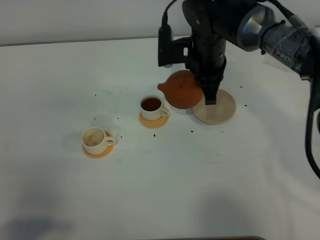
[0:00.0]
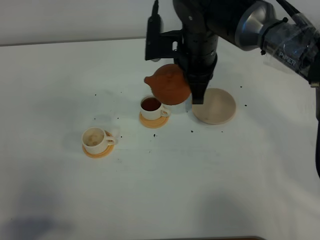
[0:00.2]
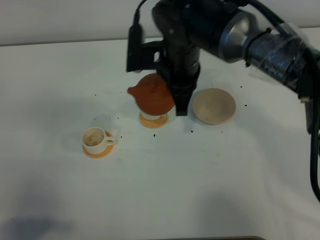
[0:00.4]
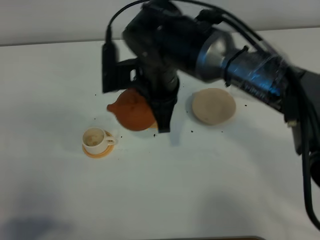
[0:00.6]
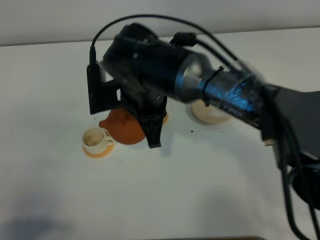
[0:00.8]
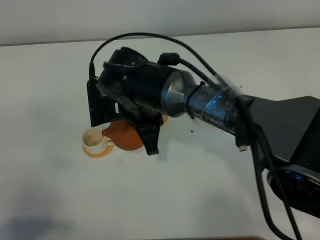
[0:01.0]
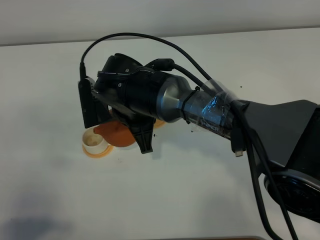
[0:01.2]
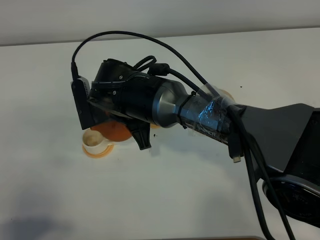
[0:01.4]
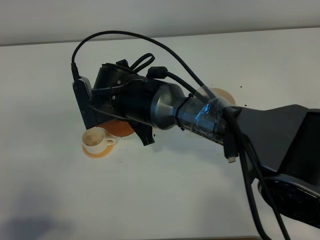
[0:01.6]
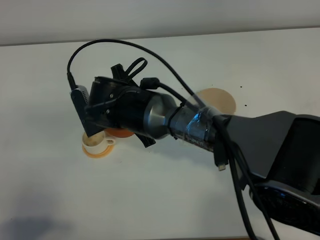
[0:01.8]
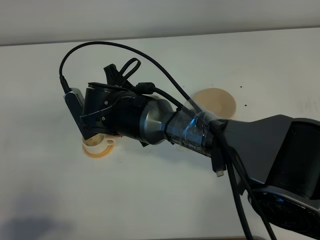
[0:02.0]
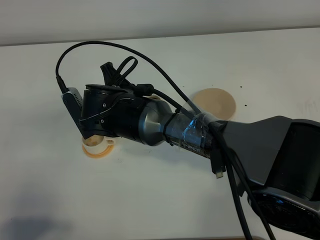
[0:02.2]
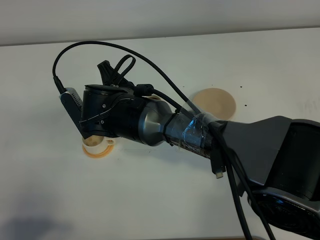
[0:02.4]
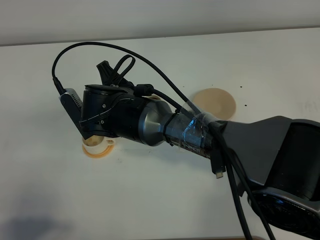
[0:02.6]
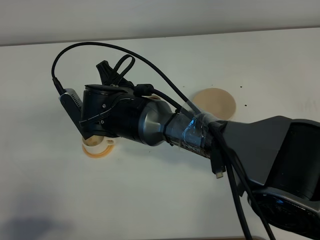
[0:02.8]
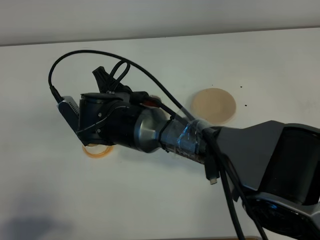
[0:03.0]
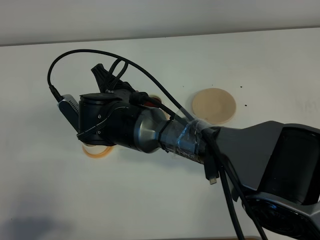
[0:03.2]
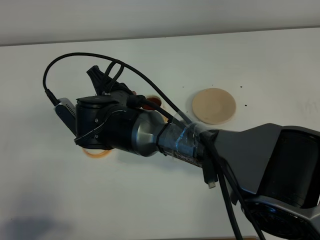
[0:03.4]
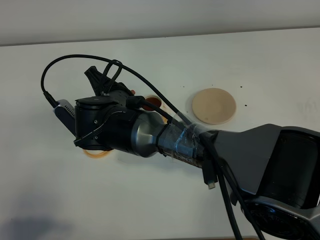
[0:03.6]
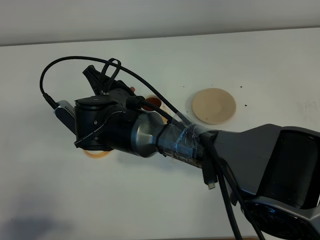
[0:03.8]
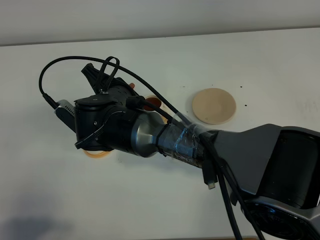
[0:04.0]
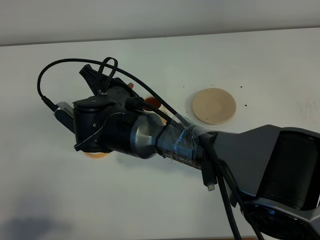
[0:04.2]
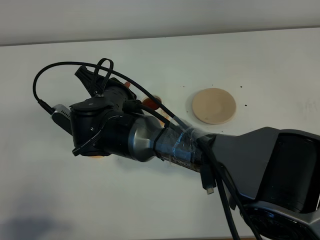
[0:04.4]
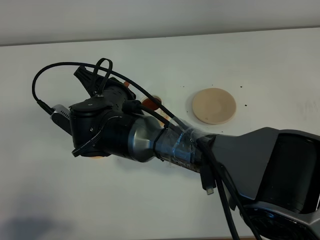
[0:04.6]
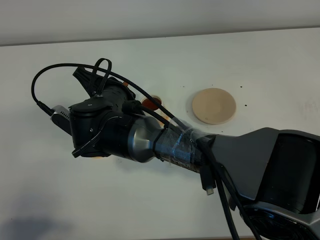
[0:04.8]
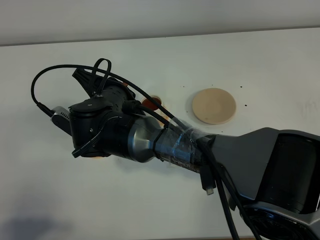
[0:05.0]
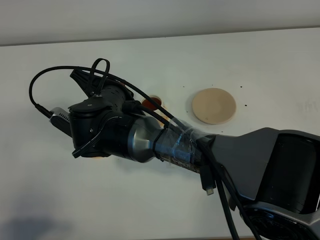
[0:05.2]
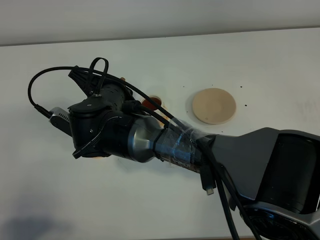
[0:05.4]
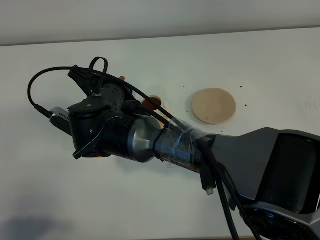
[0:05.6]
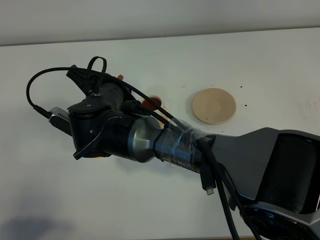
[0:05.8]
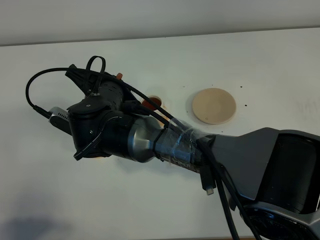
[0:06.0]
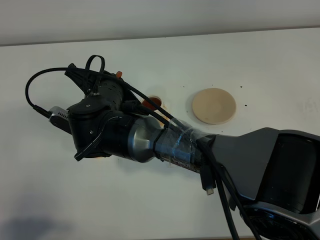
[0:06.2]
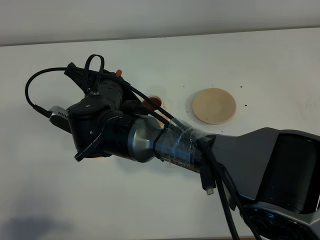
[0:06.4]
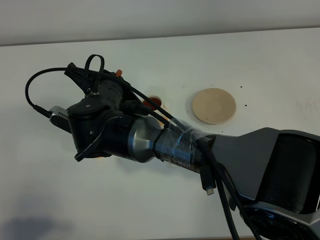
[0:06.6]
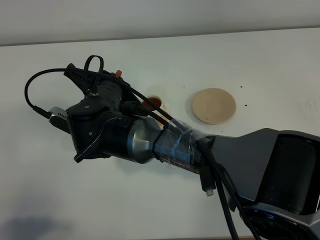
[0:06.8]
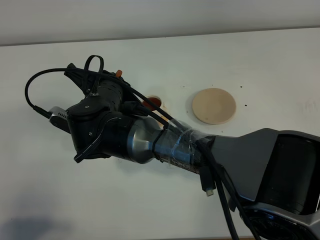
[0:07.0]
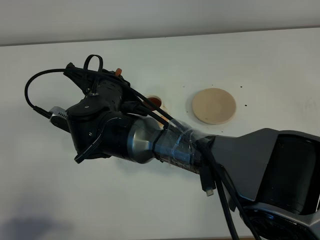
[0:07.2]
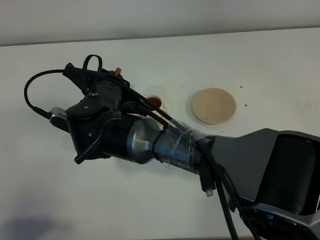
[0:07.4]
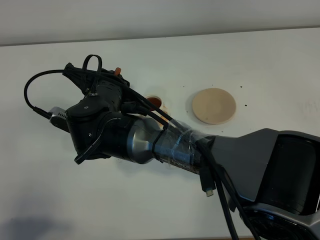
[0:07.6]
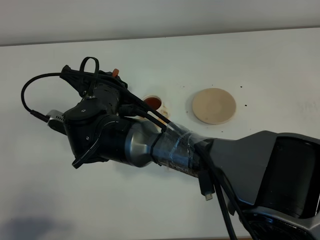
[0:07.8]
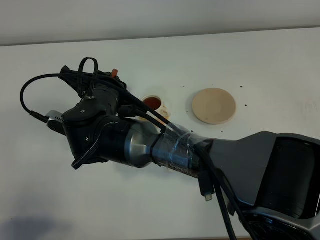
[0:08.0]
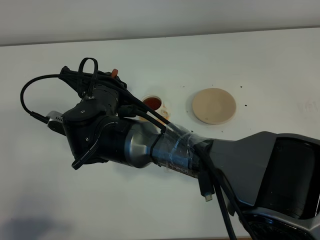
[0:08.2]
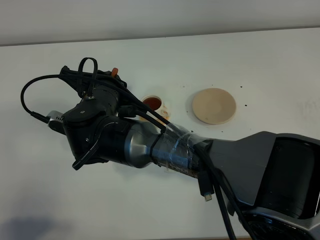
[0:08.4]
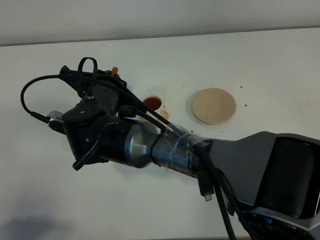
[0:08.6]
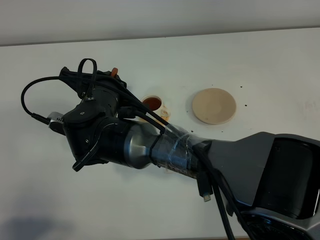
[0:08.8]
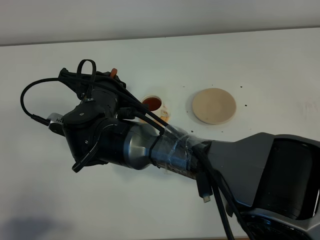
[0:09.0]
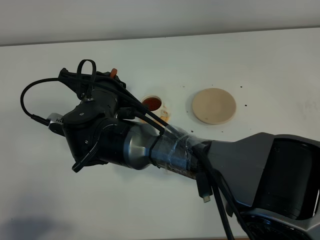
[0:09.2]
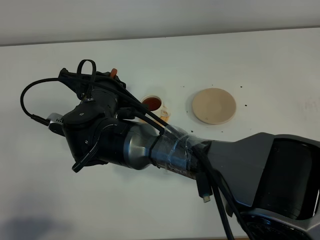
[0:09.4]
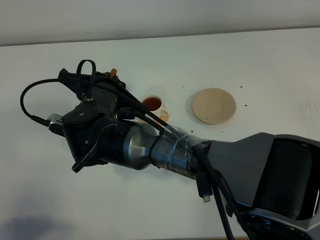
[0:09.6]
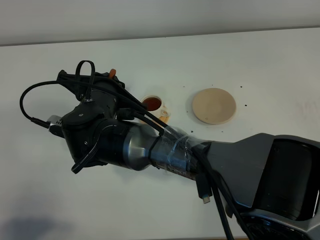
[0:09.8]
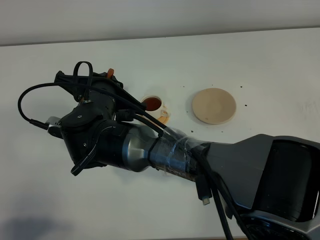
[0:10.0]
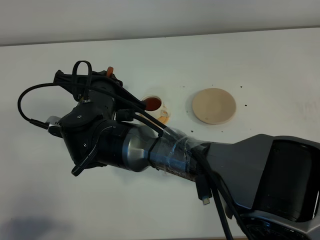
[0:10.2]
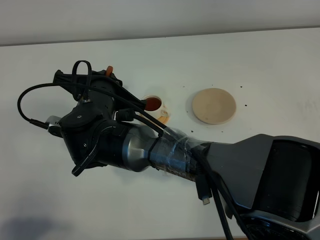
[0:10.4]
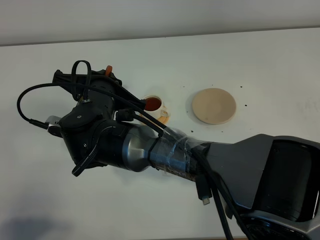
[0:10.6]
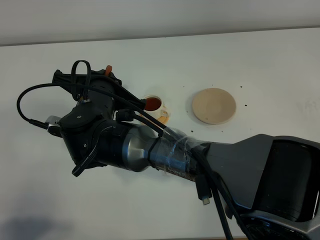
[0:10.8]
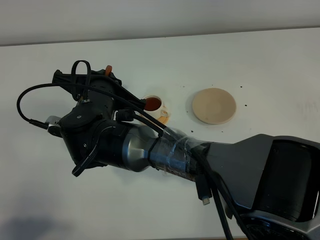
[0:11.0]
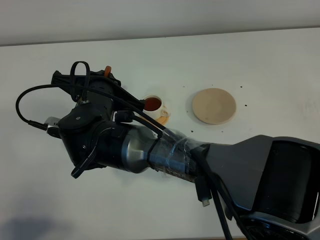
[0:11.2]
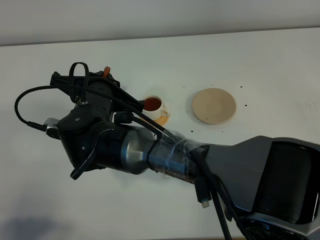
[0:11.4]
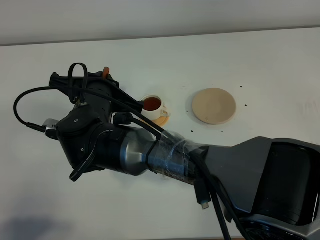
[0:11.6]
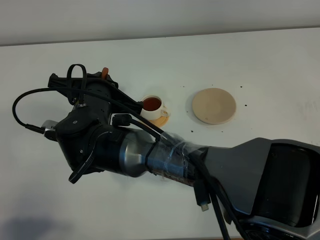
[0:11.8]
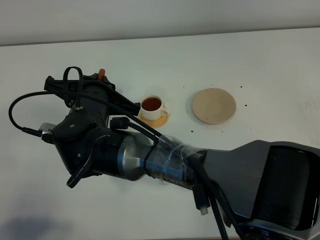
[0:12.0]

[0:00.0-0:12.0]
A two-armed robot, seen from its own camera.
Task of the whole recording: grasp the brown teapot and pour the tea into the two white teacups one by one, put the brown teapot back in its original place.
0:00.0 to 0:01.6: The right gripper is displaced to the left and backward by roughly 15 cm.
0:03.0 to 0:04.4: There are only small adjustments of the grippers.
0:04.4 to 0:06.0: The grippers move only a little.
0:06.0 to 0:07.6: Both grippers stay about where they are.
0:07.6 to 0:09.0: Both grippers stay about where they are.
0:09.0 to 0:10.4: Neither gripper changes place.
0:10.4 to 0:12.0: The grippers move only a little.

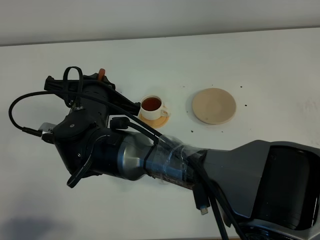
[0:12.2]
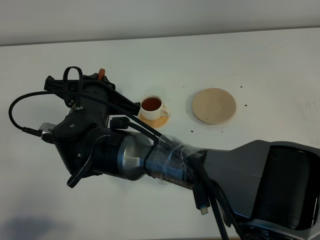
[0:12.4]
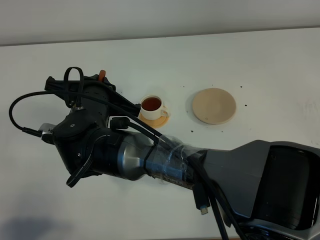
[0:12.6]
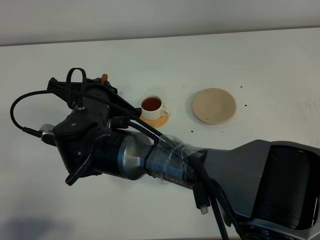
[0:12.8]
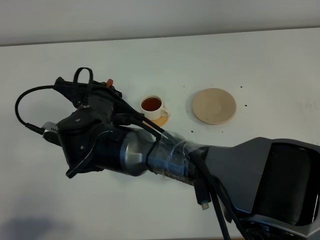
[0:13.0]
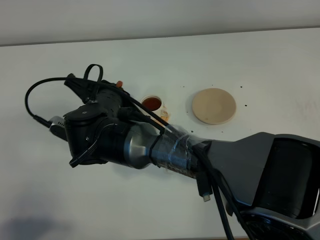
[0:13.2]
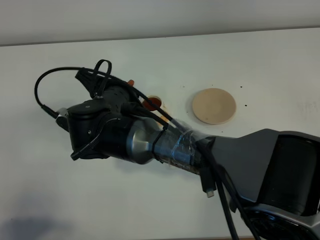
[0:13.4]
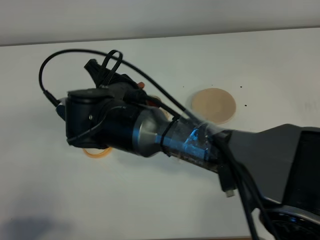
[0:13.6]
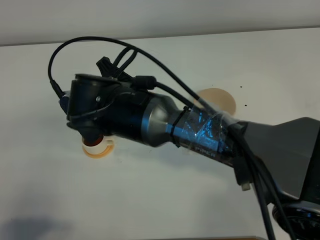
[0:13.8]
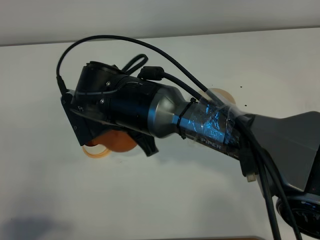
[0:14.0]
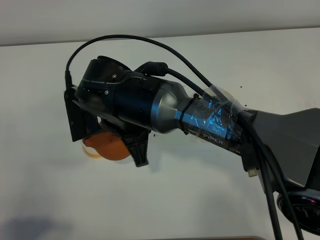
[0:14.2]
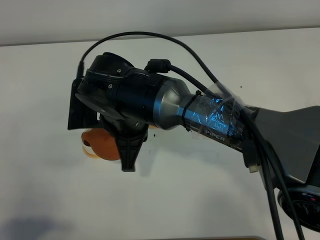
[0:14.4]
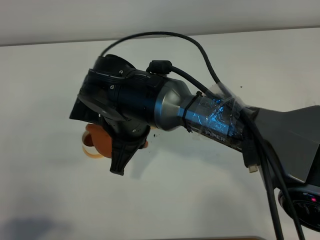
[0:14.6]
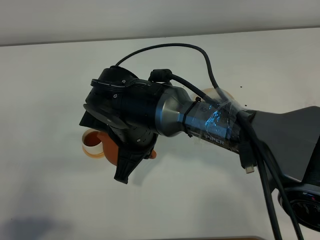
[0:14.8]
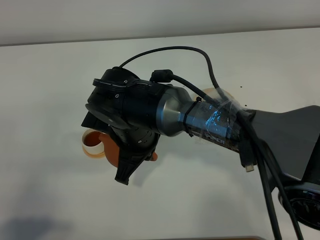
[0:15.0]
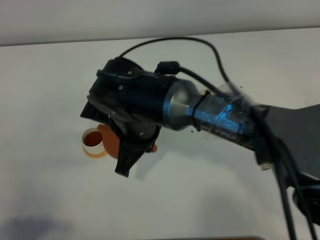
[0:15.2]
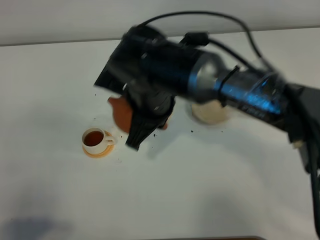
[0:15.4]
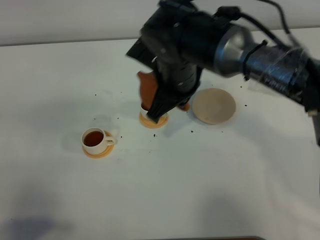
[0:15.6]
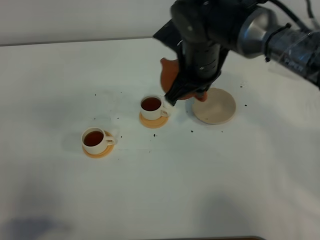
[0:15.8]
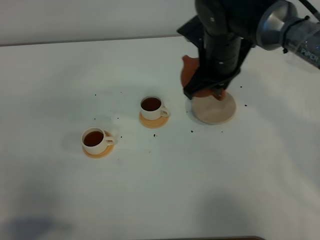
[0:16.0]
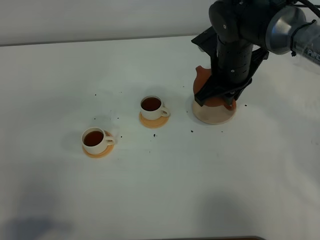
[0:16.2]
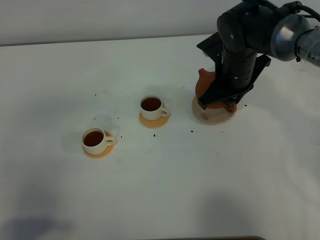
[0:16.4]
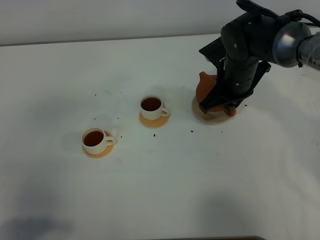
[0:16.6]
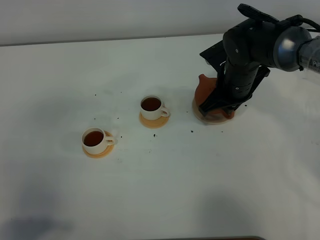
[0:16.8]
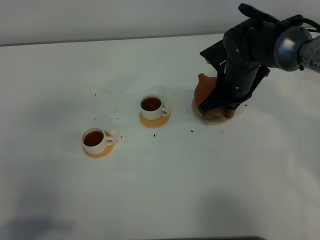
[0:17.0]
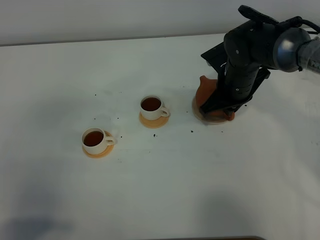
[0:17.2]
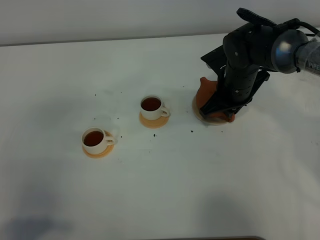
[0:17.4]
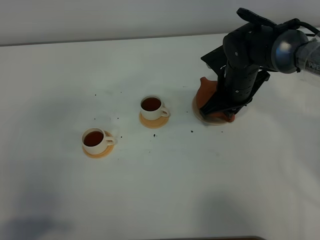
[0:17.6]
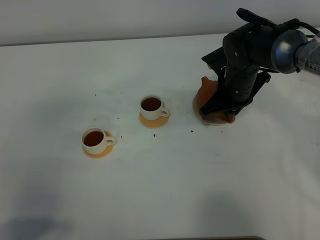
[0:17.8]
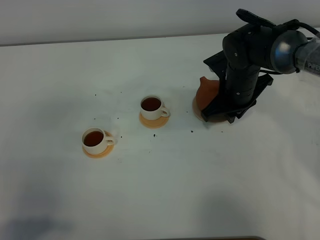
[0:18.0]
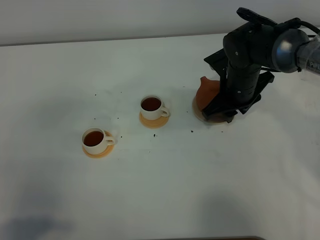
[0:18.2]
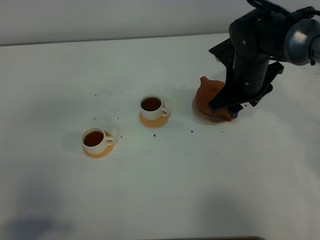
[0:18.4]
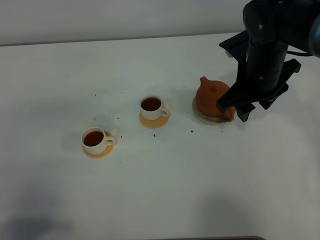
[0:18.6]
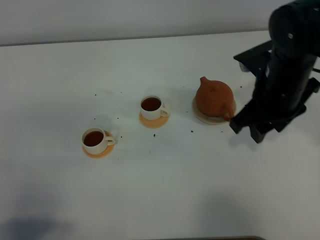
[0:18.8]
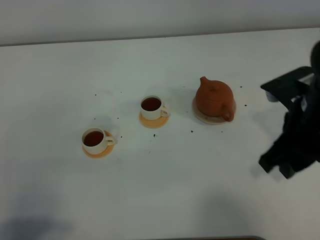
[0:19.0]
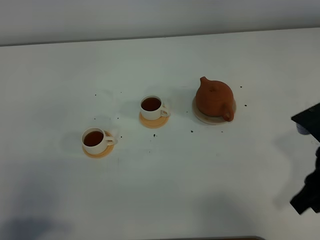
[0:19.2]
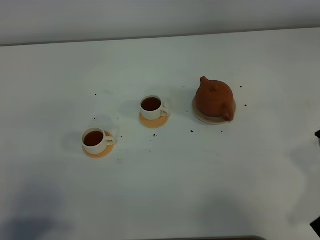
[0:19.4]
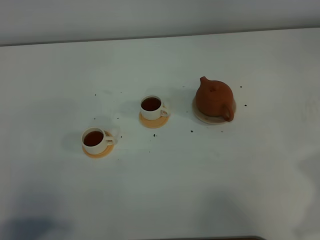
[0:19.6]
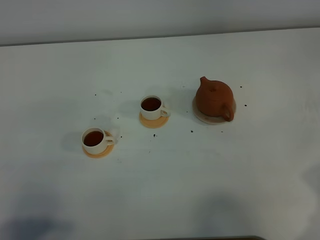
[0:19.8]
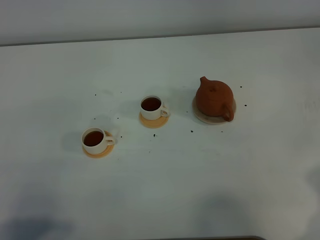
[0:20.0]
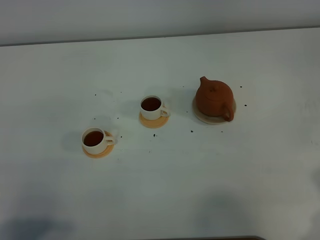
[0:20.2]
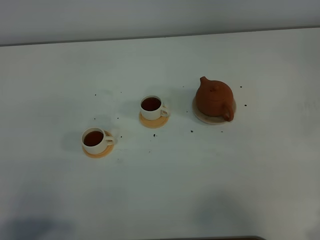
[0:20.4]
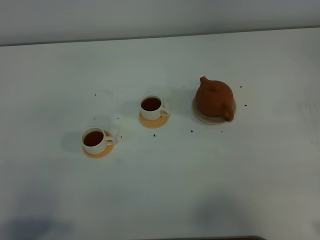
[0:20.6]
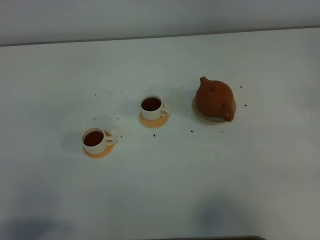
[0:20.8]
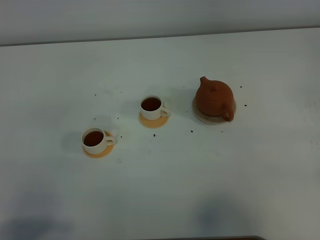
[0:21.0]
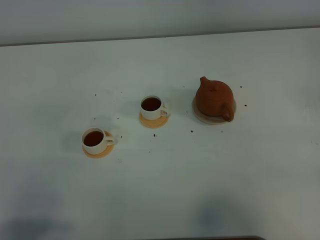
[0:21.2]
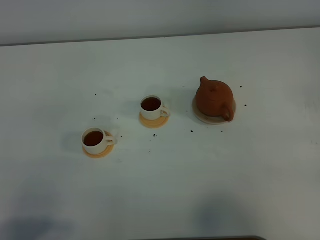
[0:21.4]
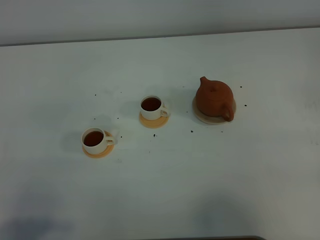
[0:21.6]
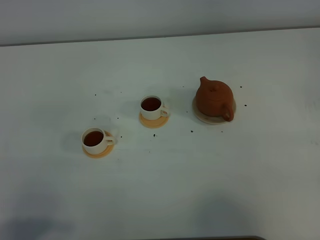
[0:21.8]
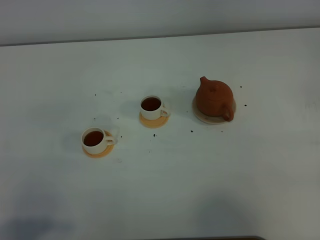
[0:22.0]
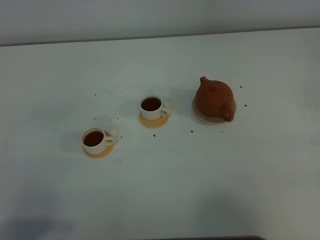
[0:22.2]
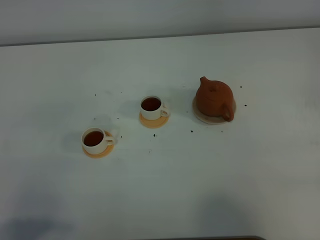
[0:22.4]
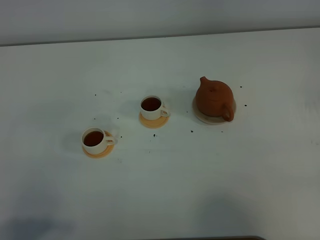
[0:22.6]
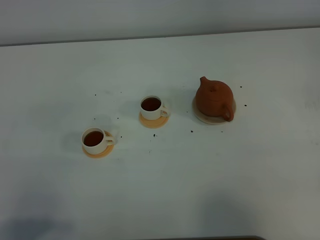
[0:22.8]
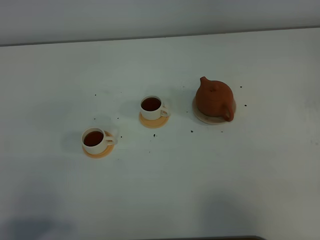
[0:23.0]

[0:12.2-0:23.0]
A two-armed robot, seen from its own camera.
Task of the whole recording: grasp the brown teapot and pour the tea into the two white teacups one by one, put the brown teapot back in its original place.
0:12.2 to 0:13.8: The right gripper moves to the right, approximately 5 cm.
0:15.2 to 0:16.8: The right gripper moves to the right and forward, approximately 20 cm.
0:16.8 to 0:18.4: The right gripper opens.
0:18.4 to 0:20.0: The right gripper heads backward and to the right, covering roughly 30 cm, and closes up.
